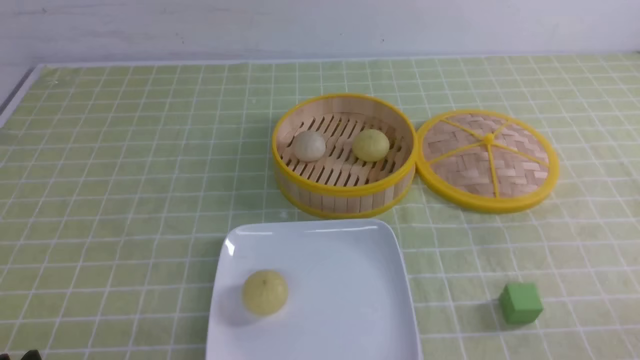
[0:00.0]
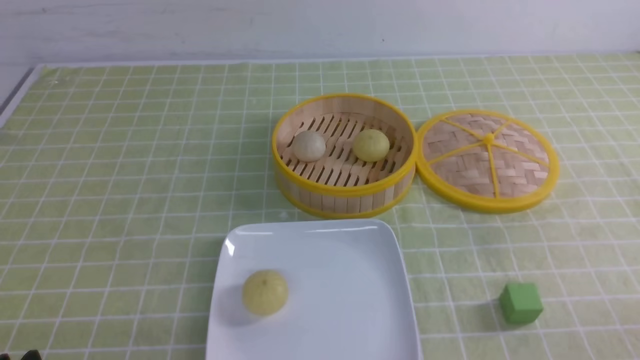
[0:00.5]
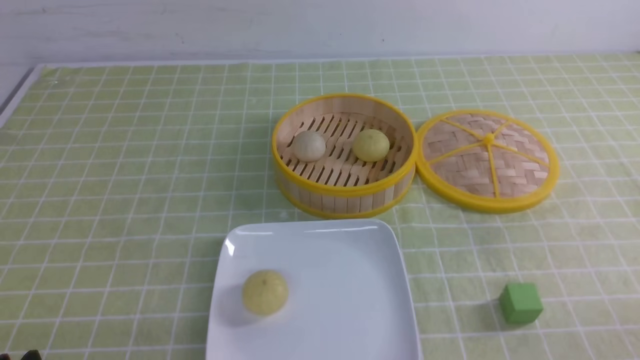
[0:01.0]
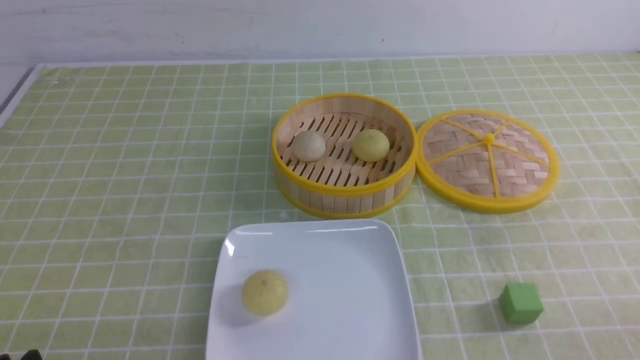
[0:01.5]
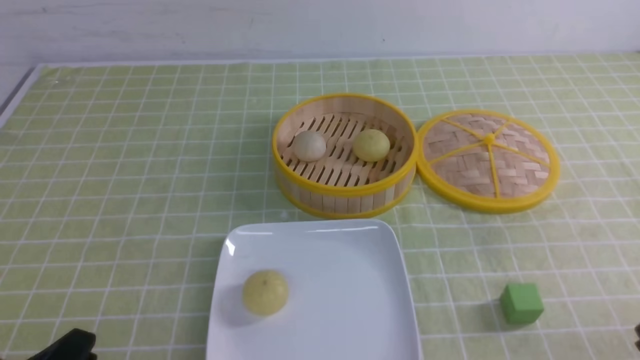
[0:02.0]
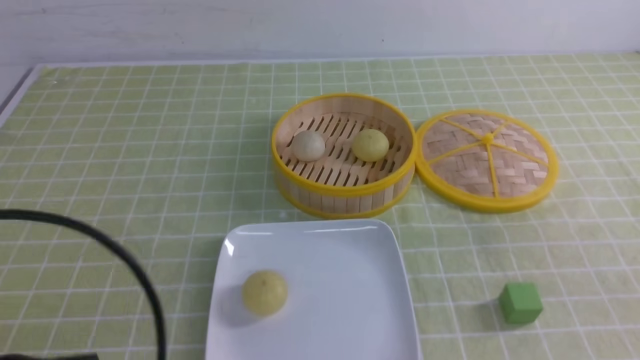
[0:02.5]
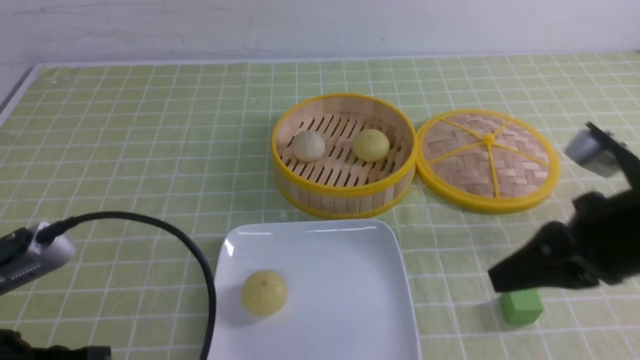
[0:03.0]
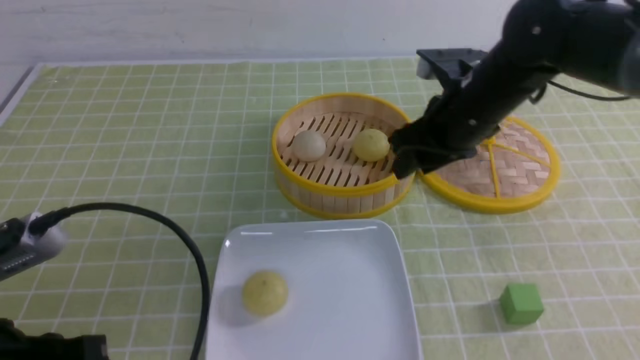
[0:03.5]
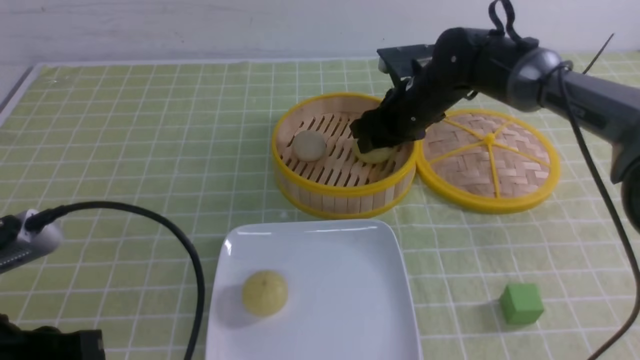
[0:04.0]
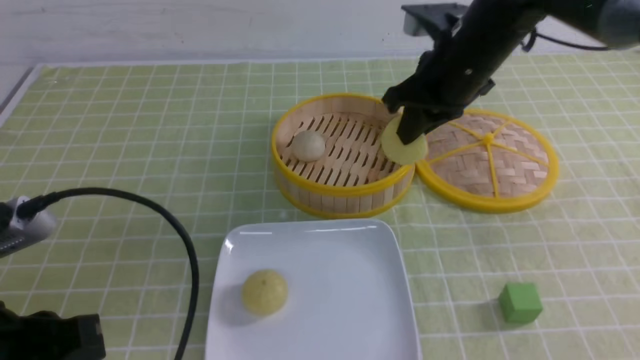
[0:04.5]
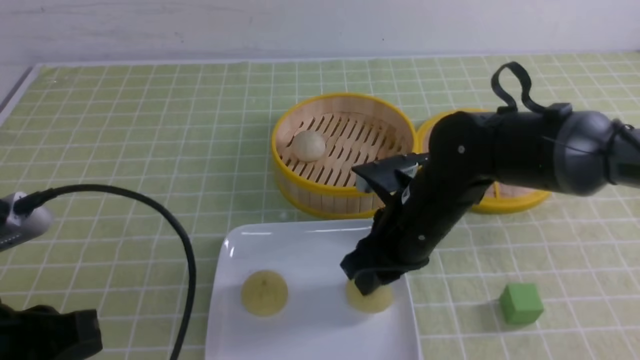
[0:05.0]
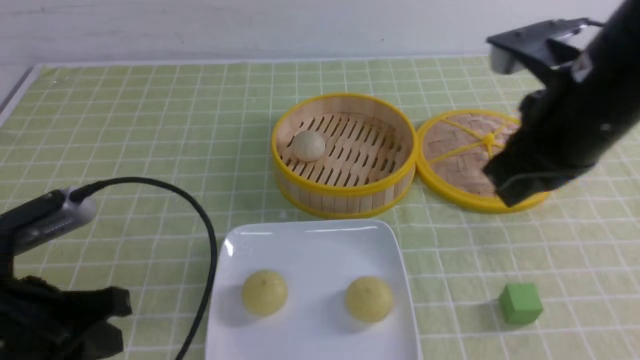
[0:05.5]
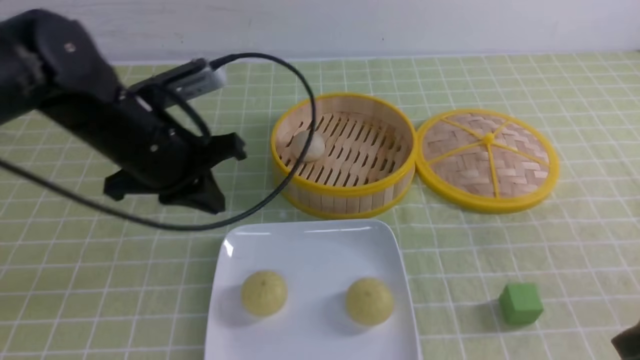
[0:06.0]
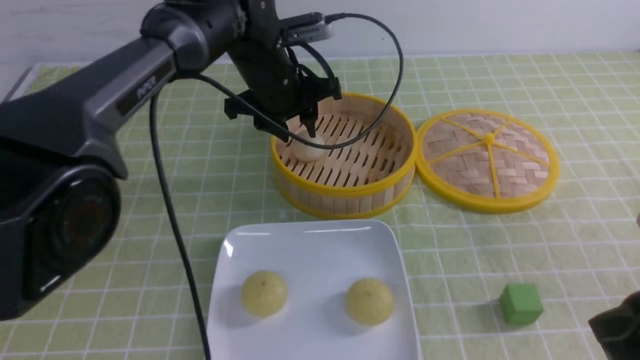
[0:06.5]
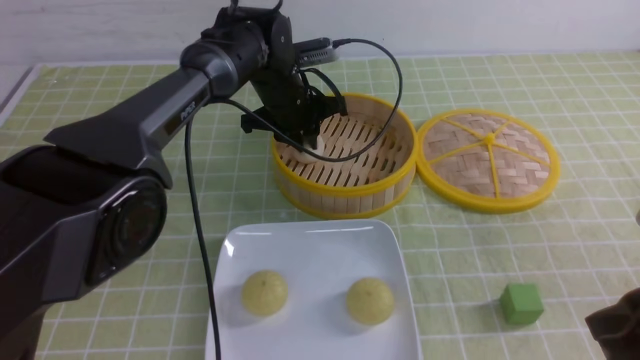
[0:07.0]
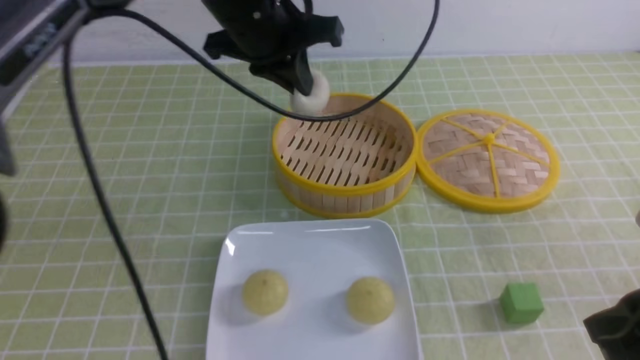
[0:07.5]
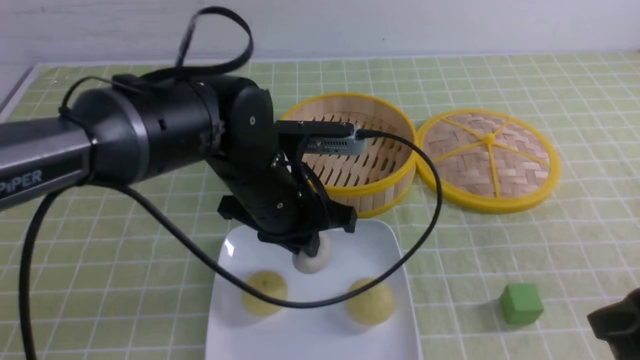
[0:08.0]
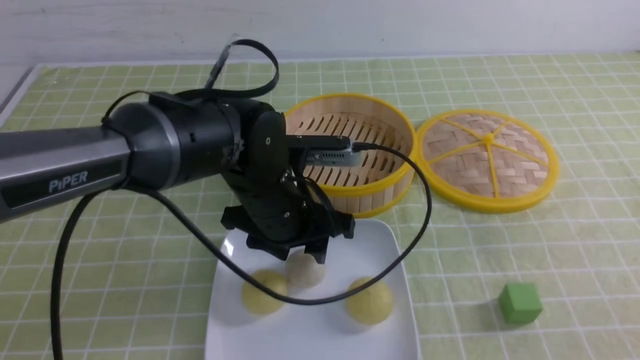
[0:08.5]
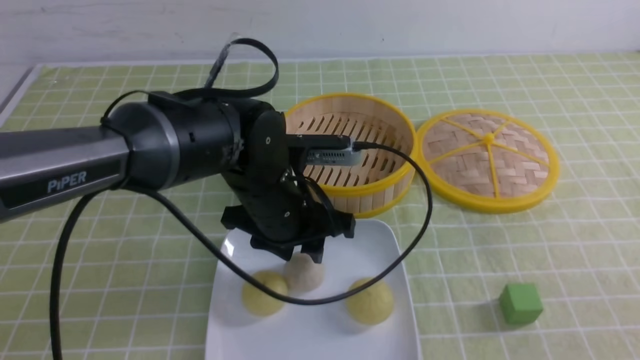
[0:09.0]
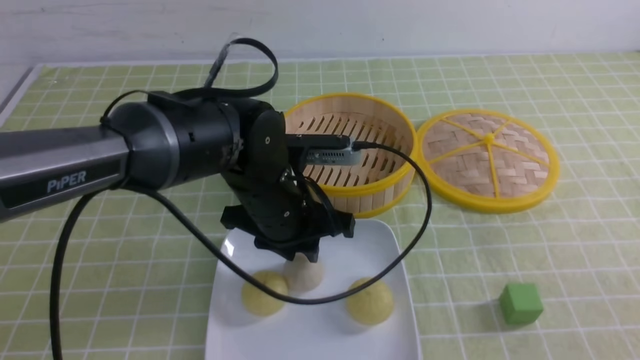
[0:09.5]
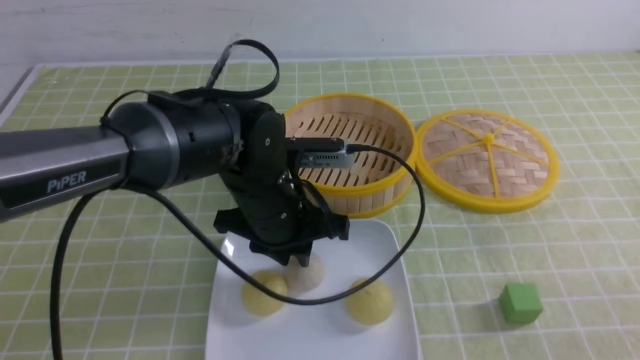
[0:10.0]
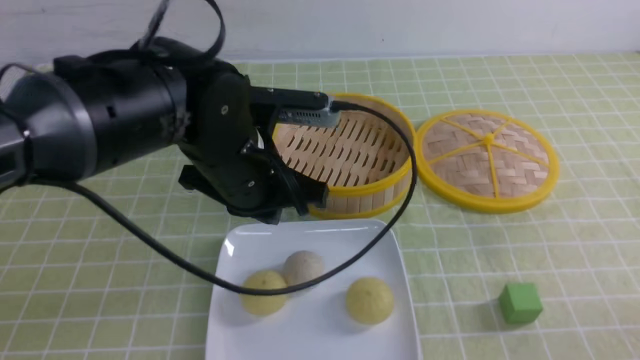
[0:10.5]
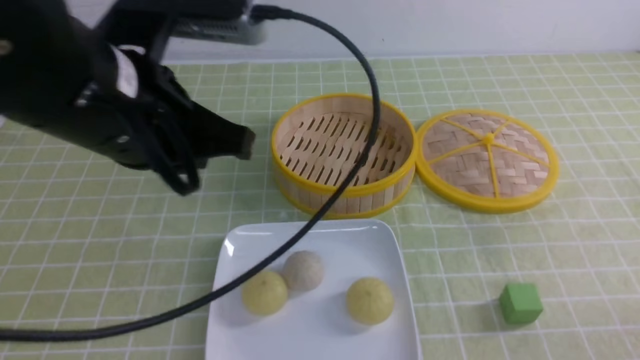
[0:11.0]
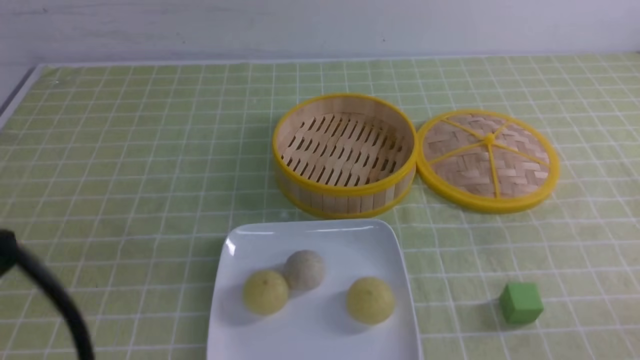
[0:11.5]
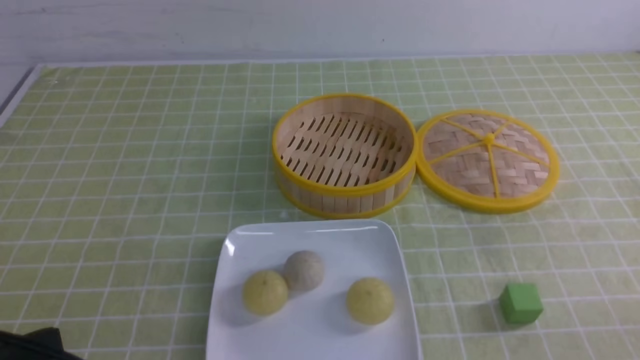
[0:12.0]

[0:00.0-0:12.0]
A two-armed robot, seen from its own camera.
Step, 0:00.0 to 0:04.0: use the right arm to grab the steamed stuffed bun that is closest to it.
Step, 0:04.5 to 0:05.0: use the right arm to put the steamed stuffed bun into the plate.
Step, 0:05.5 to 0:07.0: use the left arm to grab the steamed stuffed bun that is closest to it.
Step, 0:07.5 to 0:08.0: use the left arm to put the steamed stuffed bun into the plate.
0:02.0 to 0:04.0: The left gripper shifts about 10 cm upward and forward, while the right gripper shifts roughly 50 cm forward and to the left, and closes, then reopens.
0:04.0 to 0:06.0: The right gripper travels backward and to the right by about 35 cm, and closes. The left gripper is displaced forward by roughly 20 cm.
0:06.0 to 0:08.0: The left gripper is displaced to the right by approximately 10 cm, goes forward and returns, about 15 cm each way, and opens, then closes again.
0:08.0 to 0:10.0: The right gripper moves backward and downward, roughly 10 cm. Meanwhile the left gripper opens and closes again.
0:10.0 to 0:12.0: The left gripper goes about 30 cm backward and to the left, and closes up. The right gripper goes approximately 5 cm downward.

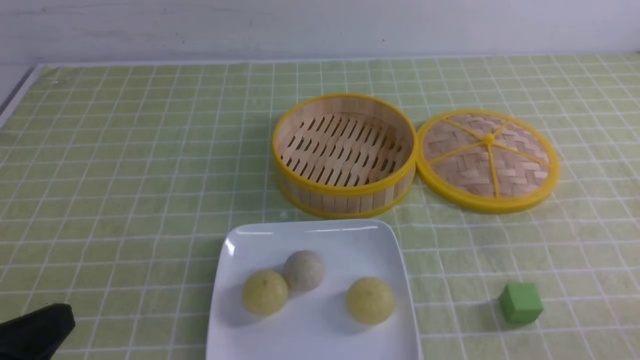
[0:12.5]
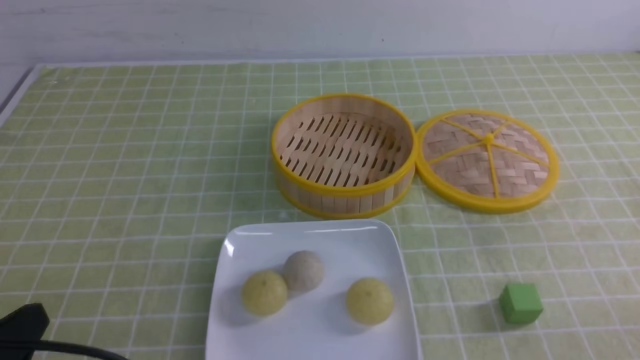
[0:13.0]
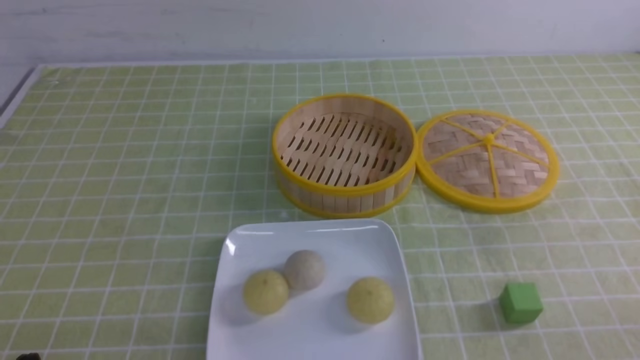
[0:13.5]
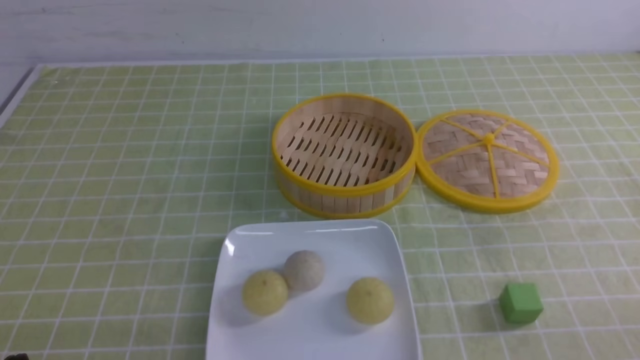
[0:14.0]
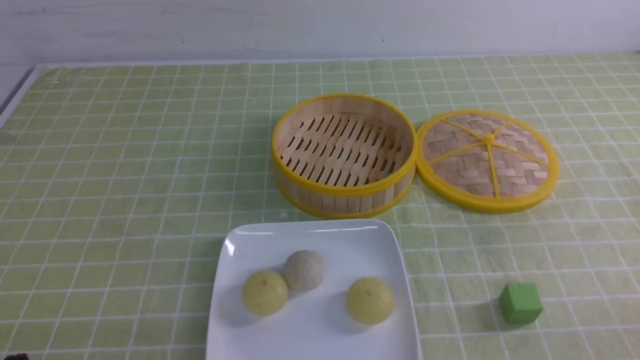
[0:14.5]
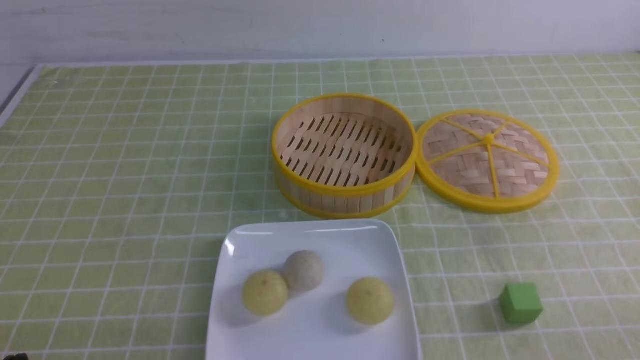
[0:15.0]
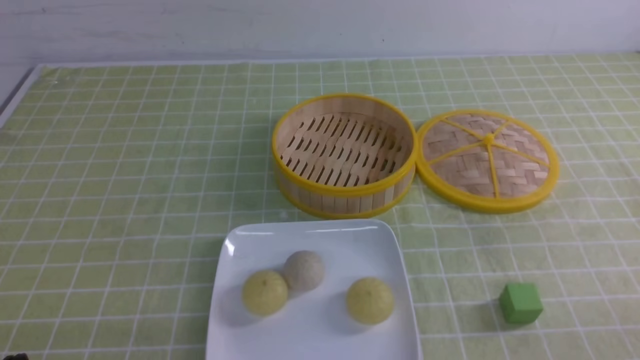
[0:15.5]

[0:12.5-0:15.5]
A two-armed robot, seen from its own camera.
0:12.5 to 0:14.0: The left gripper shifts approximately 10 cm downward.
0:14.0 to 0:15.5: The two grippers keep their place.
